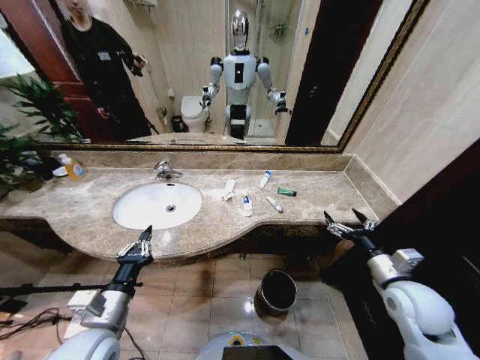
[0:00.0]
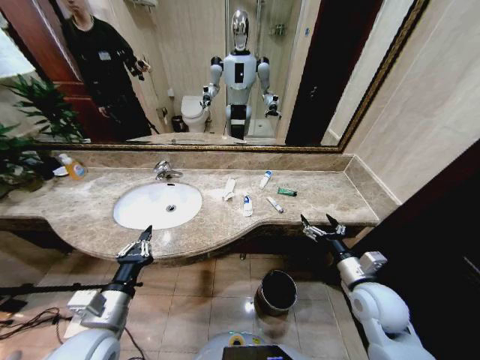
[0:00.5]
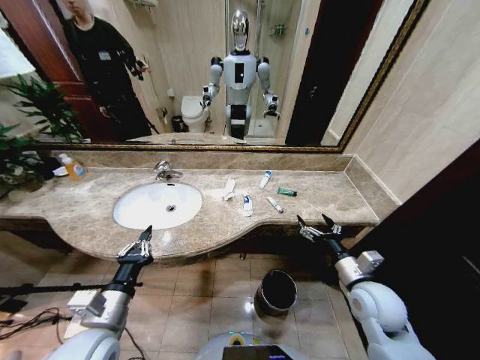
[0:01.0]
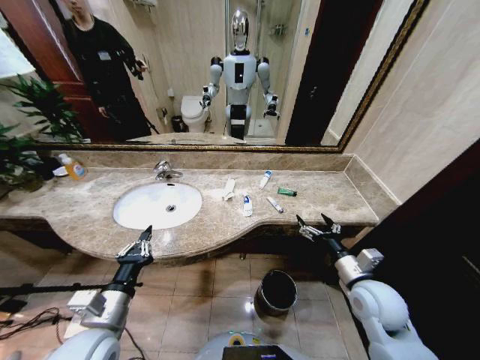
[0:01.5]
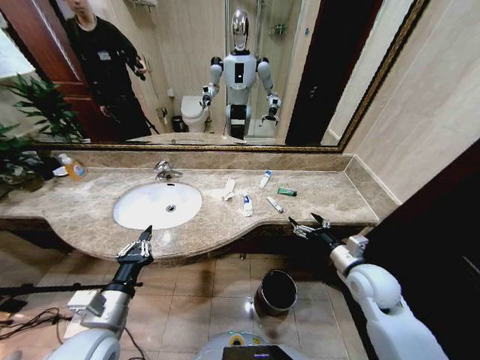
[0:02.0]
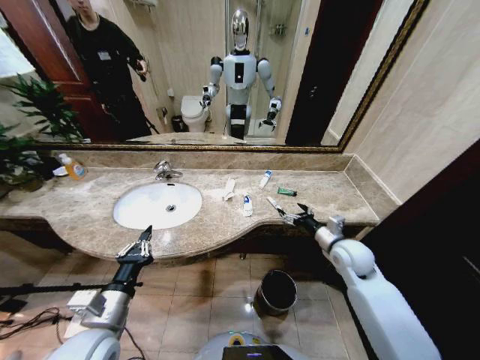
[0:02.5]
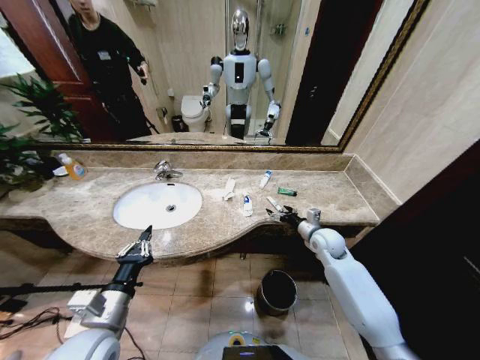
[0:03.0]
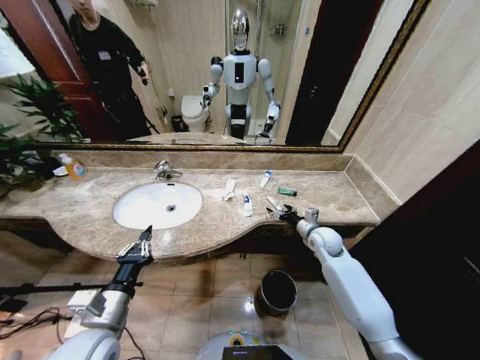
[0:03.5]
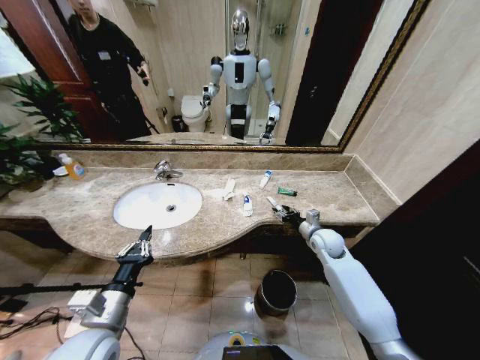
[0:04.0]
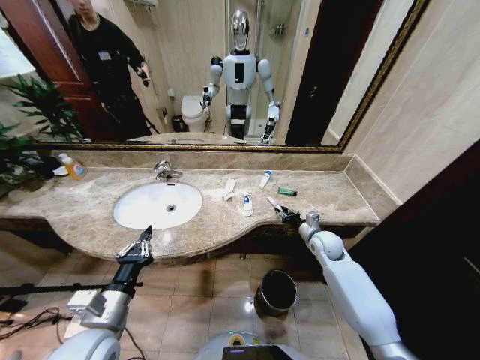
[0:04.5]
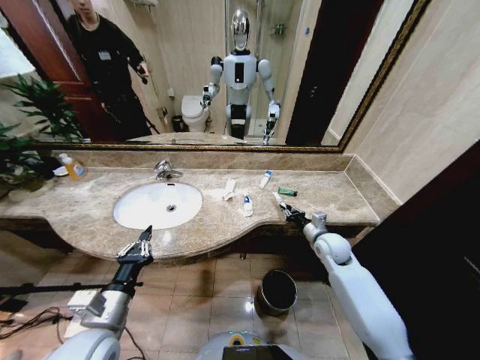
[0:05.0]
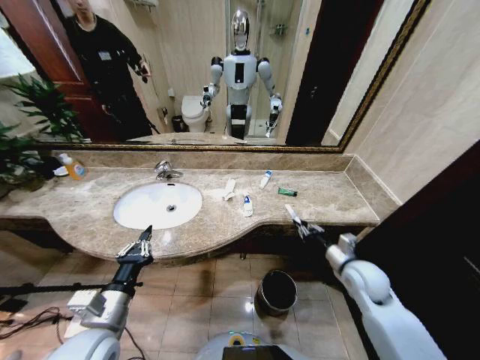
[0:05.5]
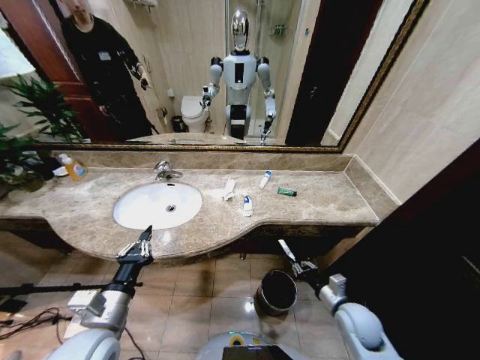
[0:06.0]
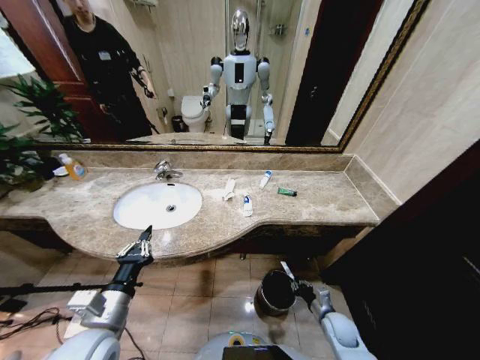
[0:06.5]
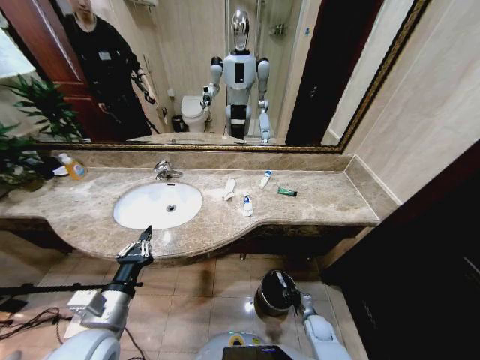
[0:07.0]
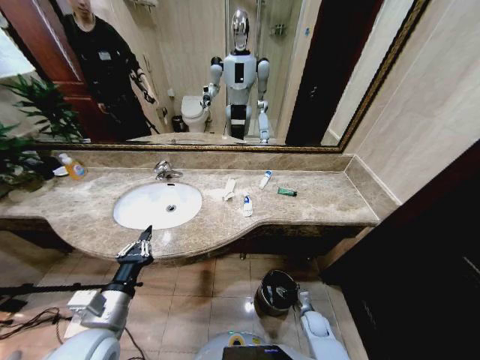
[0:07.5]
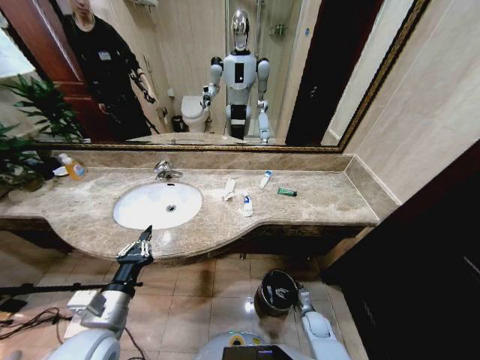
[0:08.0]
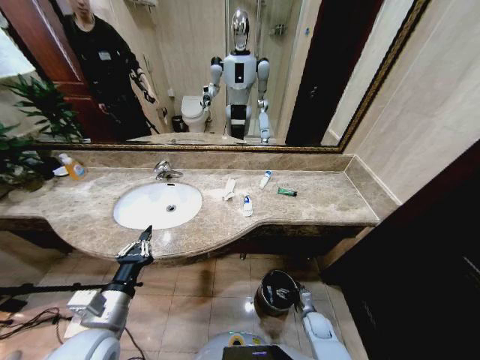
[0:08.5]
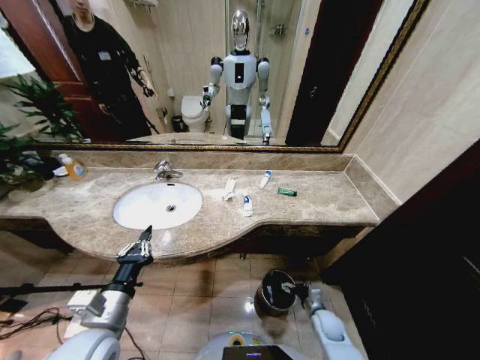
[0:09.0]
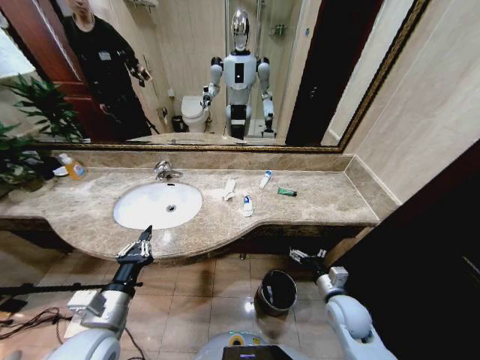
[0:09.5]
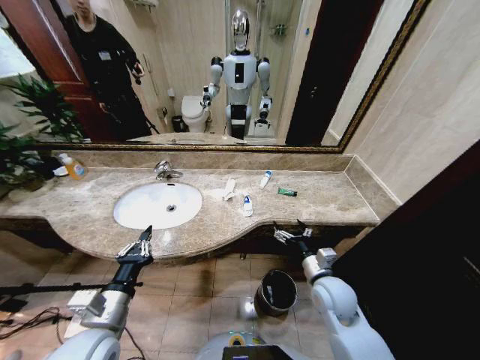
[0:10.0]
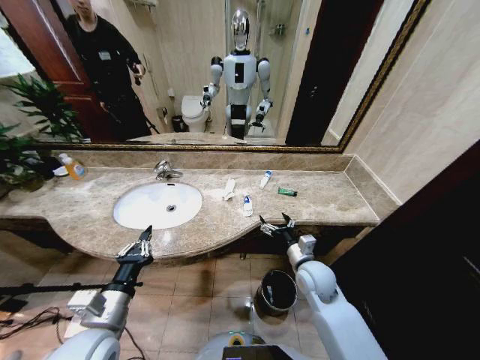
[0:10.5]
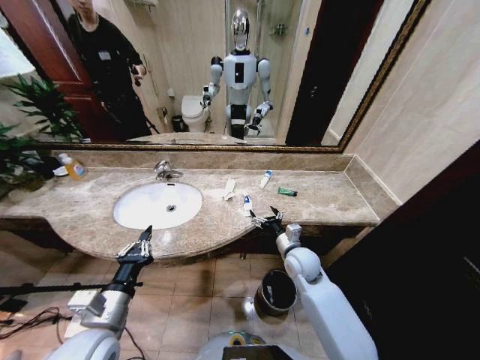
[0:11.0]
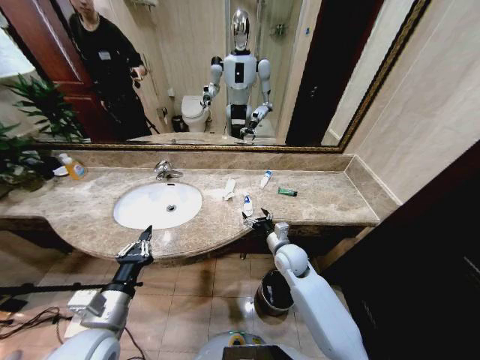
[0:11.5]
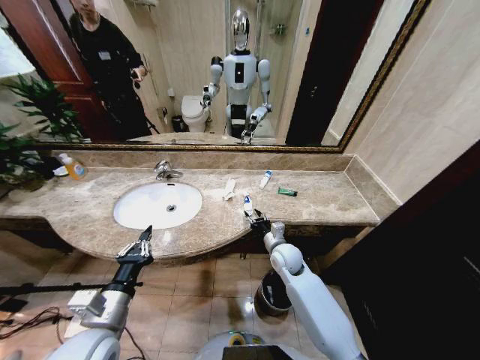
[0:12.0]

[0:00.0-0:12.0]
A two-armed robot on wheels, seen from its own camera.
Task of the whole recording: Pick up the trash from the sink and place it in the trash bin.
2.0 to 4.0 s: The right gripper goes about 15 cm forward, and closes up.
4.0 to 6.0 s: The right gripper heads backward, covering some 20 cm, and closes.
6.0 to 8.0 s: The right gripper travels downward by roughly 20 cm, and opens its fingers.
8.0 to 10.0 s: The right gripper is displaced upward by approximately 30 cm.
10.0 to 12.0 s: The right gripper moves forward and to the left, approximately 15 cm, and closes up.

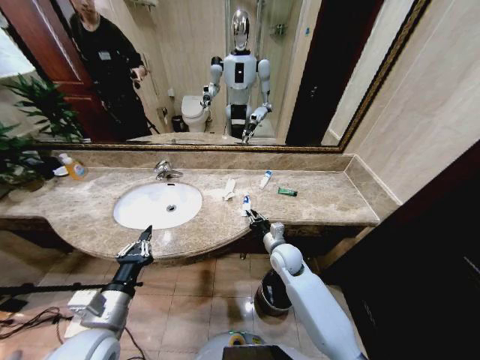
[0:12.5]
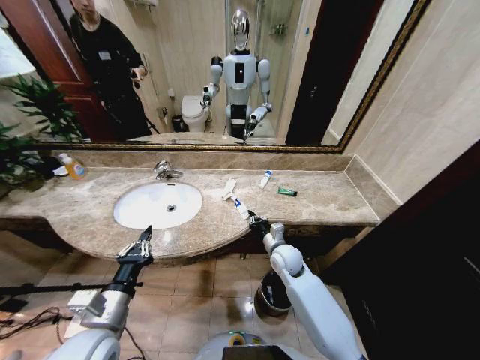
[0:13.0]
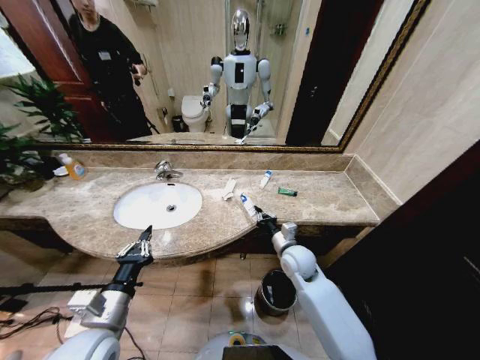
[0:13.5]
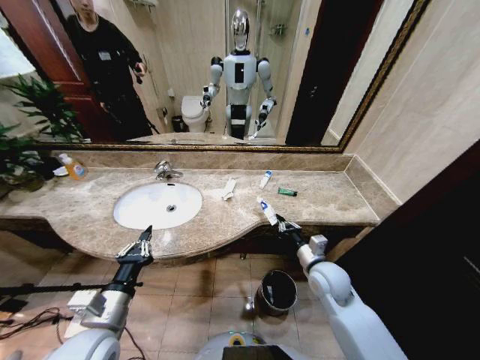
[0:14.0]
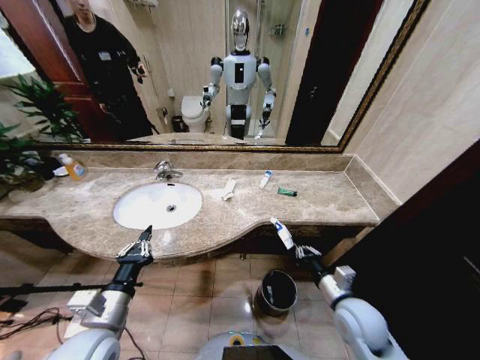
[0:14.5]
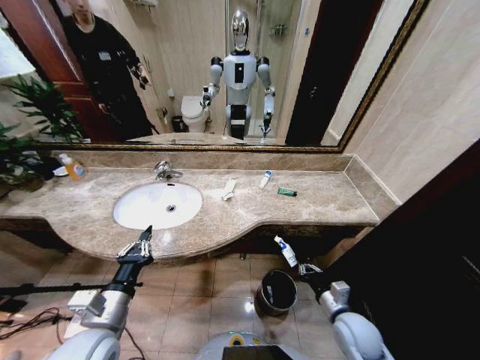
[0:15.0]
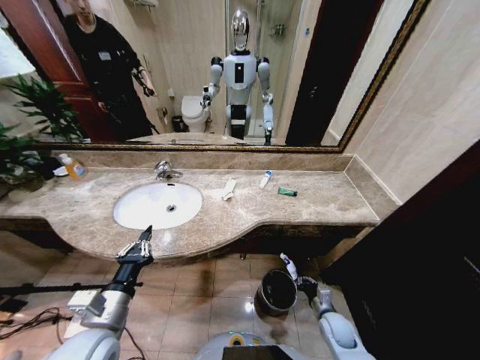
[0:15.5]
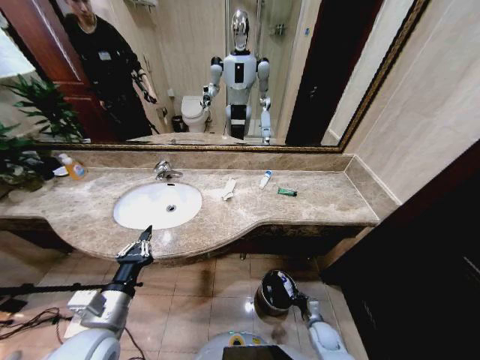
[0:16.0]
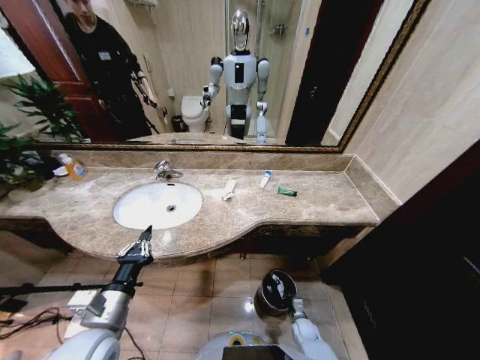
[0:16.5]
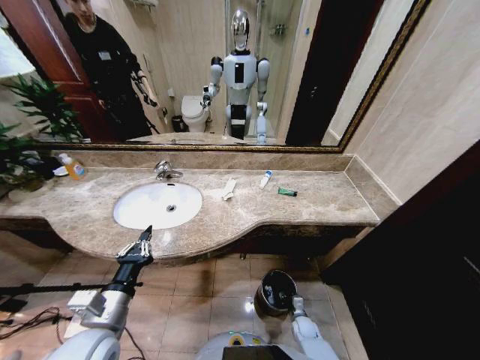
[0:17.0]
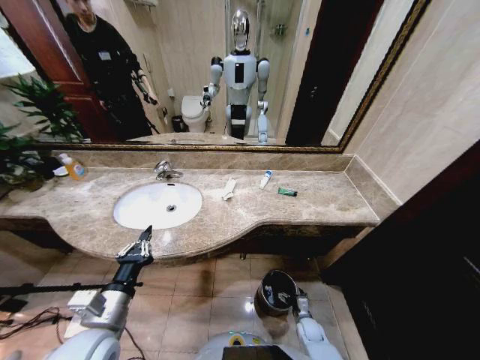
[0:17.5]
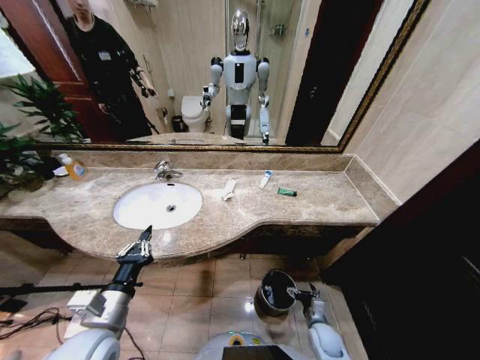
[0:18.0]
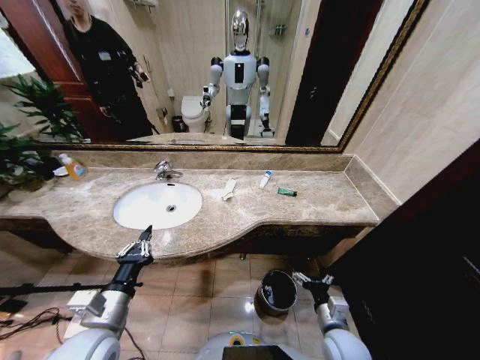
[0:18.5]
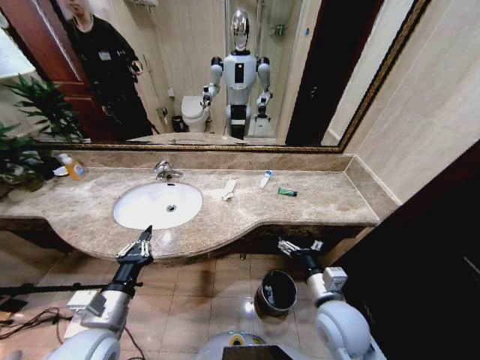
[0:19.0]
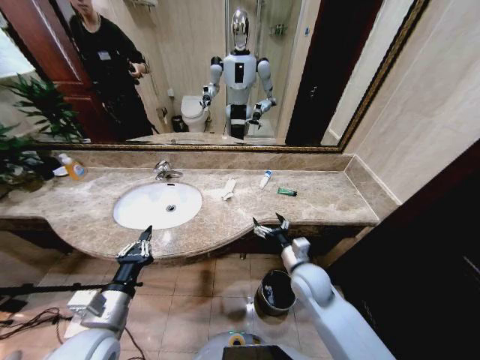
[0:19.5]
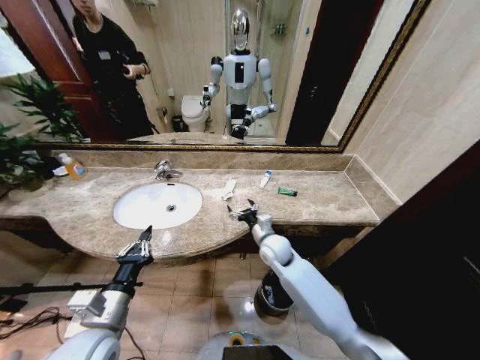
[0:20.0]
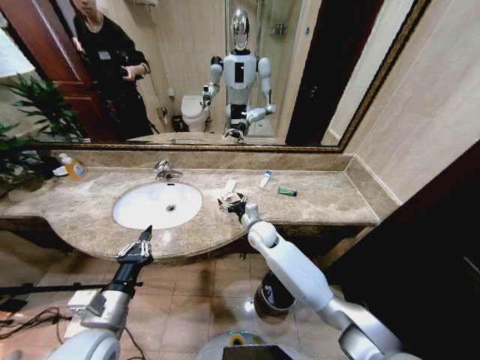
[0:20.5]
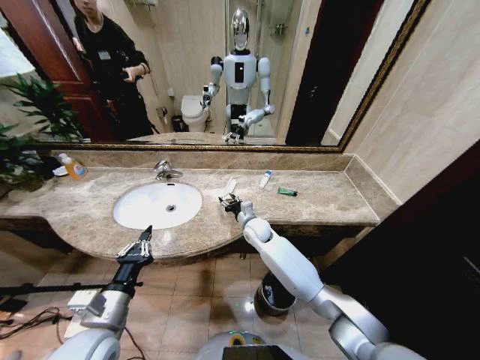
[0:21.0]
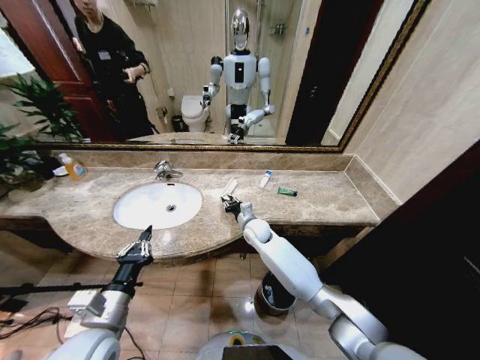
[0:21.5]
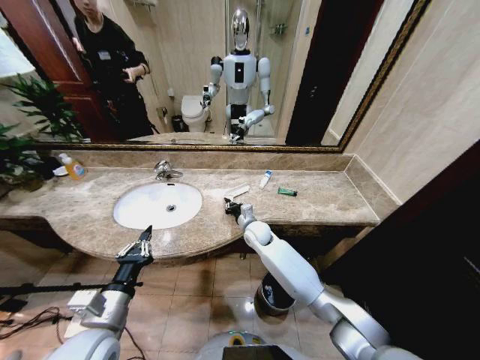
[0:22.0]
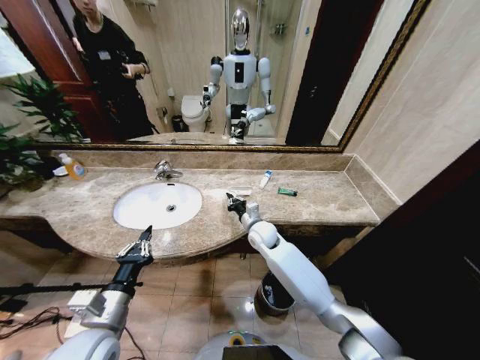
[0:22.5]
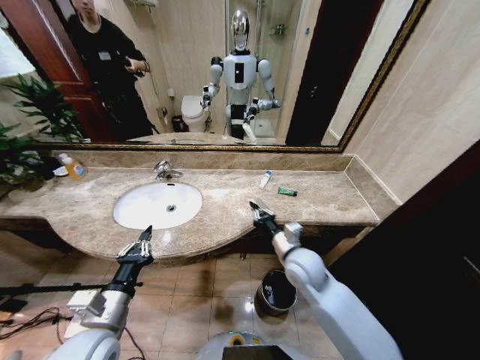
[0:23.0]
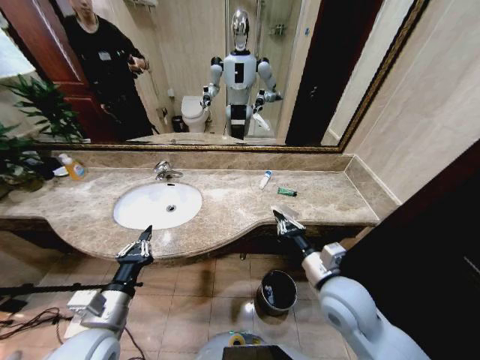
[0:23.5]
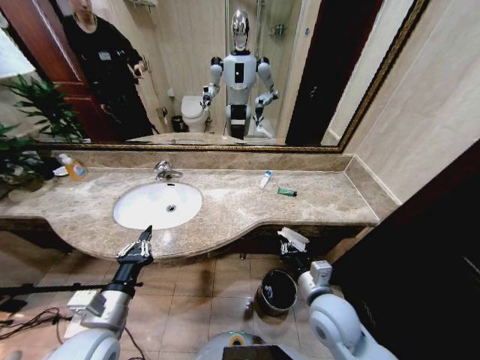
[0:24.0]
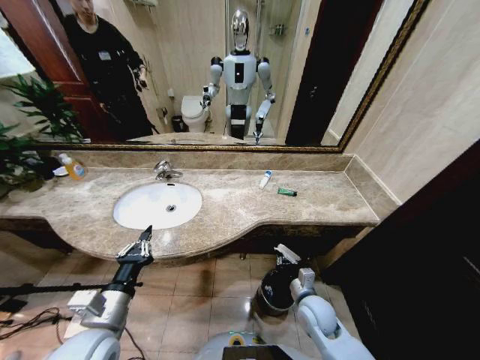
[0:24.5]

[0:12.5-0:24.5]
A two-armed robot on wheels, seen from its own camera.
Task of the whole recording: Pick up the trash from the sink and place it in the trash bin.
12.5 to 14.5 s: The right gripper is displaced backward and to the right by some 20 cm.
14.5 to 16.5 s: The right gripper travels downward by approximately 35 cm.
16.5 to 18.5 s: The right gripper goes roughly 25 cm upward, and opens.
18.5 to 20.5 s: The right gripper moves forward and to the left, approximately 35 cm.
20.5 to 22.5 s: The right gripper closes.
22.5 to 24.5 s: The right gripper moves backward, to the right and downward, approximately 25 cm.

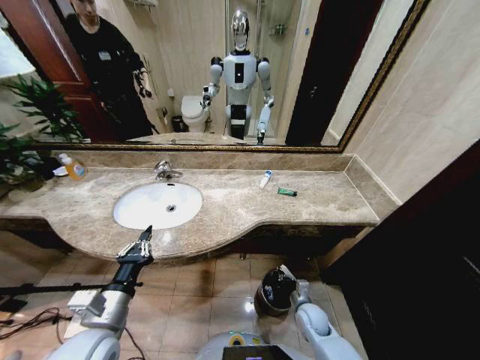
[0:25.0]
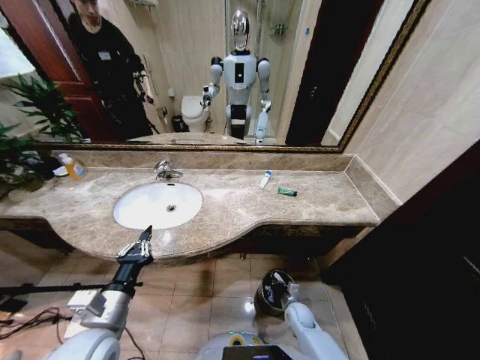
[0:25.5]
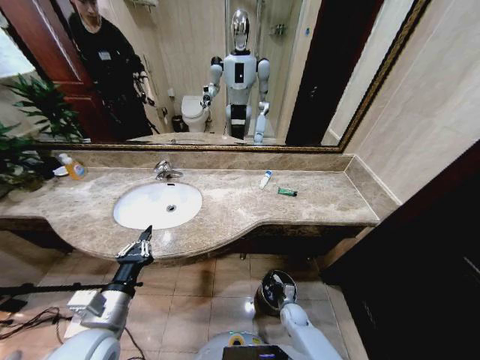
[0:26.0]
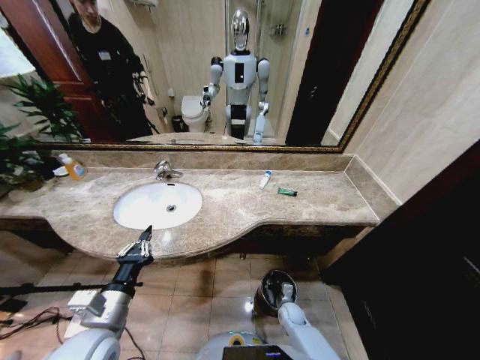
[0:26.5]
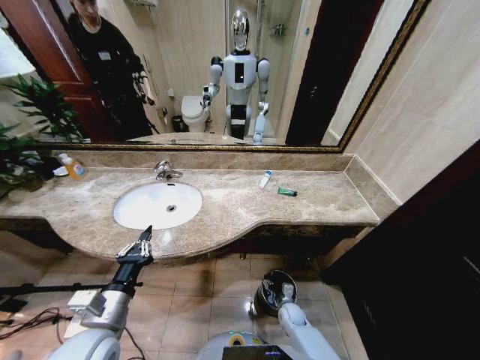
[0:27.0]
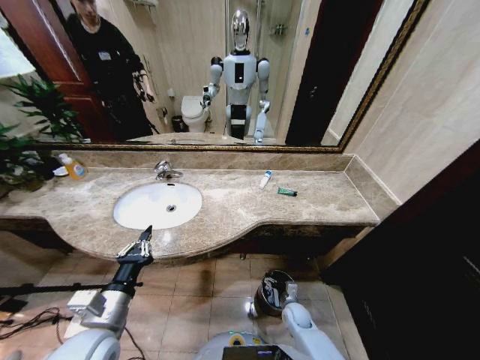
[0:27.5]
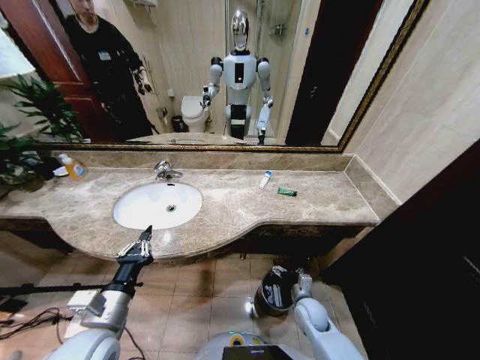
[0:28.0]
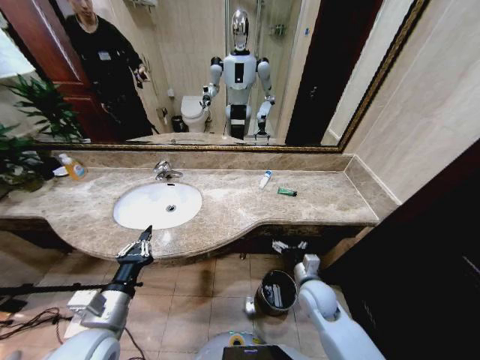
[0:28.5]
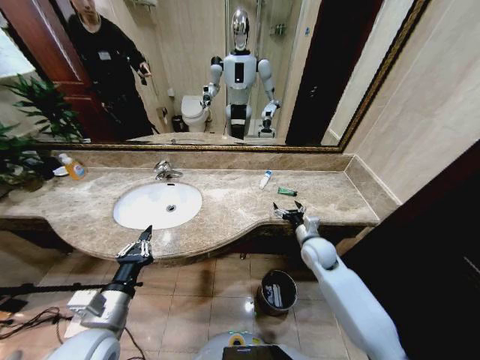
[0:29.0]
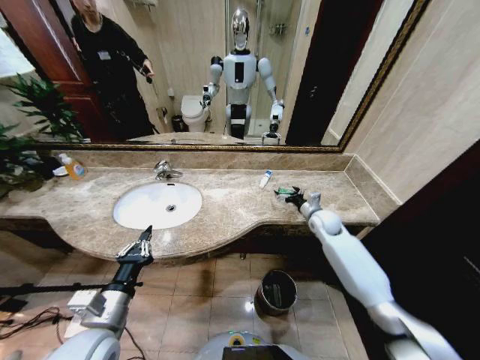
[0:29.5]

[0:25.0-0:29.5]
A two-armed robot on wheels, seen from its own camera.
Task of the whole recording: Pick up the trash from the sink and place it in the trash bin.
25.0 to 27.0 s: The right gripper goes some 10 cm downward, and opens.
27.0 to 29.5 s: The right gripper goes some 40 cm upward and forward.
